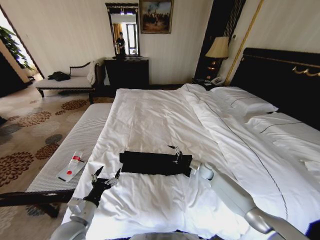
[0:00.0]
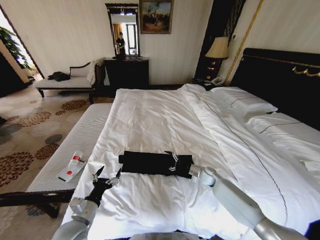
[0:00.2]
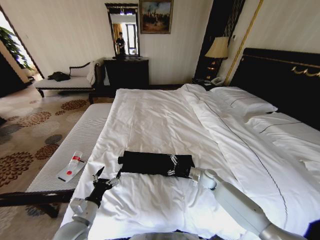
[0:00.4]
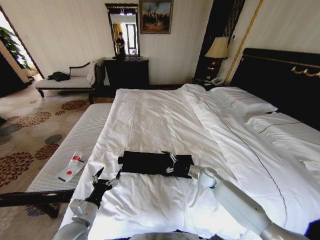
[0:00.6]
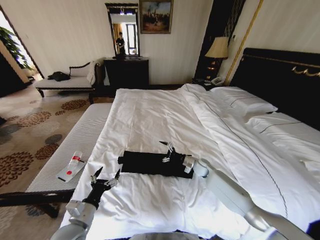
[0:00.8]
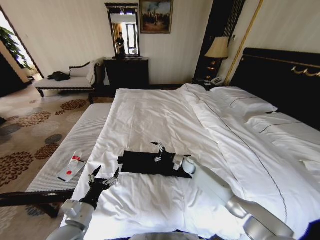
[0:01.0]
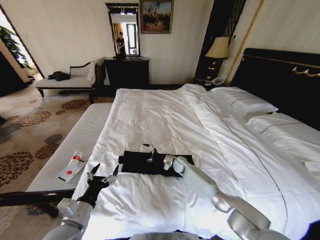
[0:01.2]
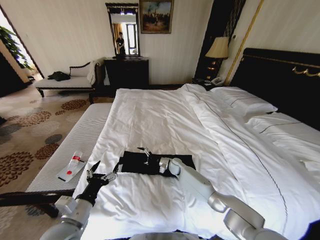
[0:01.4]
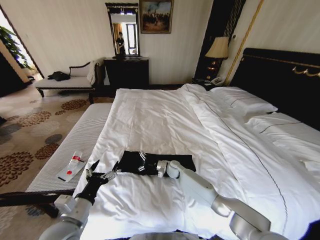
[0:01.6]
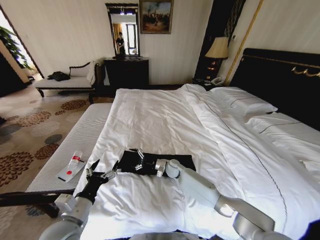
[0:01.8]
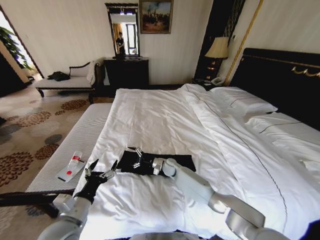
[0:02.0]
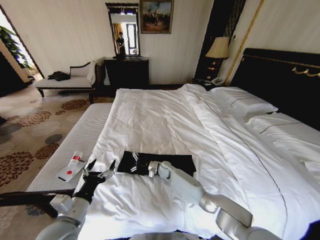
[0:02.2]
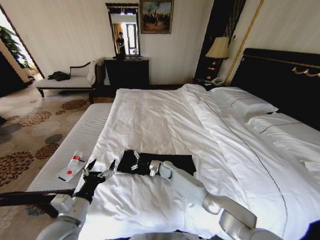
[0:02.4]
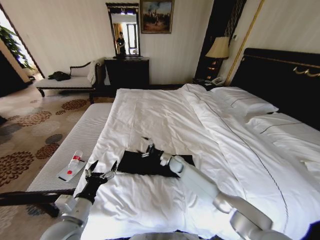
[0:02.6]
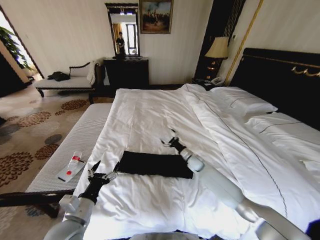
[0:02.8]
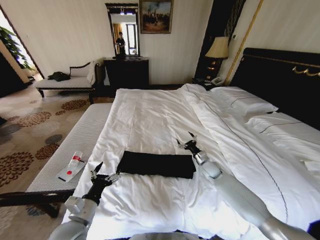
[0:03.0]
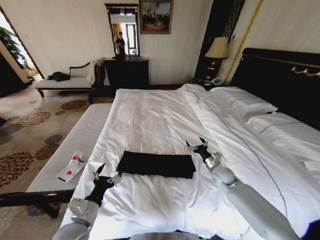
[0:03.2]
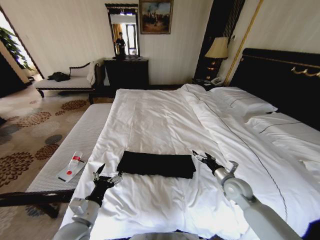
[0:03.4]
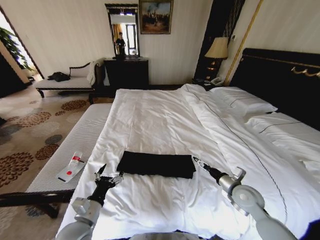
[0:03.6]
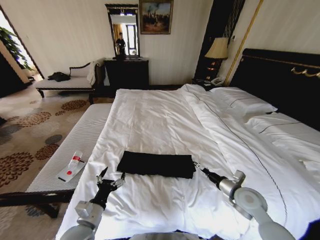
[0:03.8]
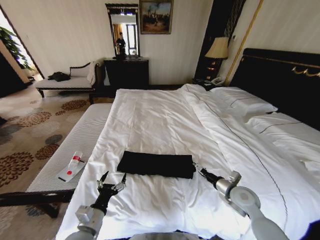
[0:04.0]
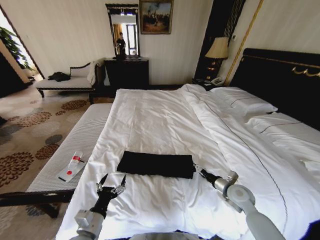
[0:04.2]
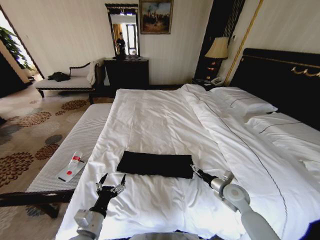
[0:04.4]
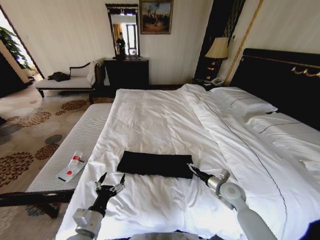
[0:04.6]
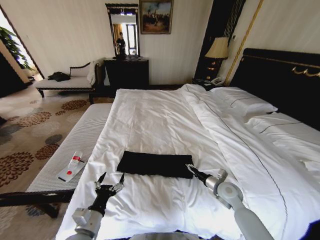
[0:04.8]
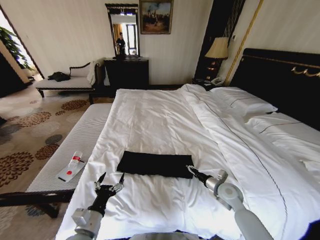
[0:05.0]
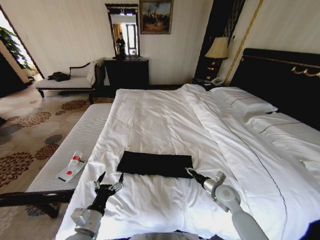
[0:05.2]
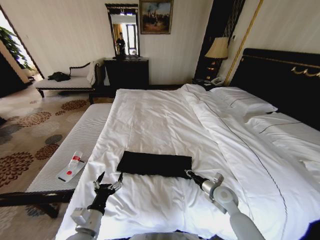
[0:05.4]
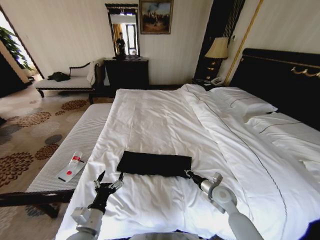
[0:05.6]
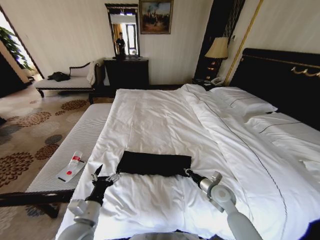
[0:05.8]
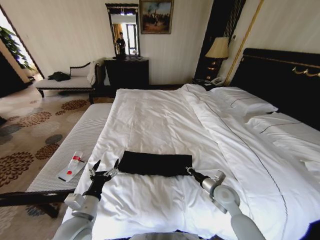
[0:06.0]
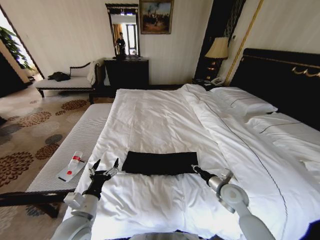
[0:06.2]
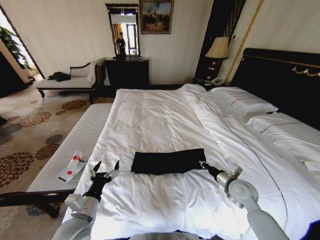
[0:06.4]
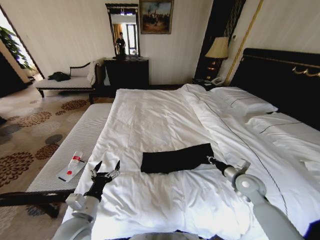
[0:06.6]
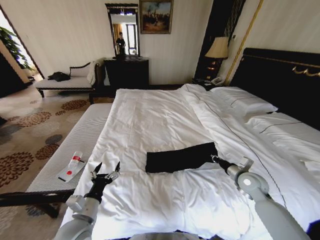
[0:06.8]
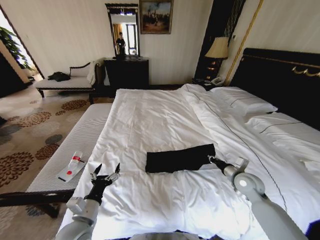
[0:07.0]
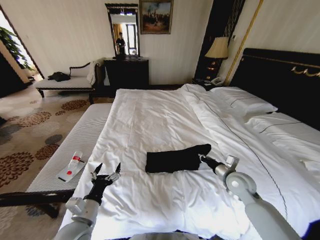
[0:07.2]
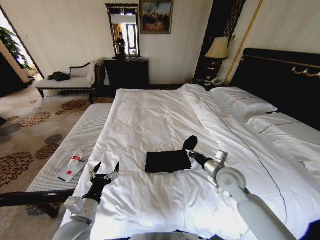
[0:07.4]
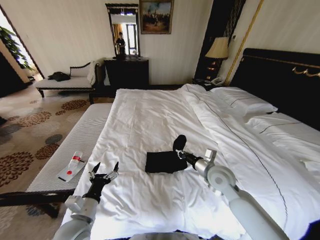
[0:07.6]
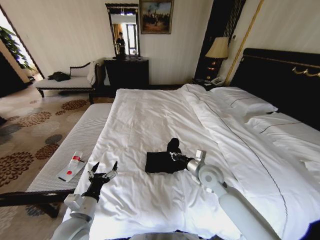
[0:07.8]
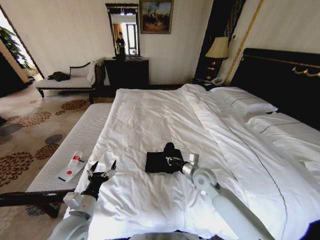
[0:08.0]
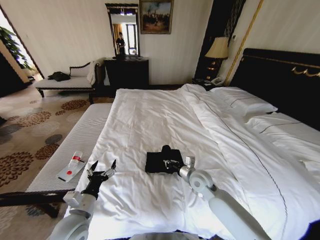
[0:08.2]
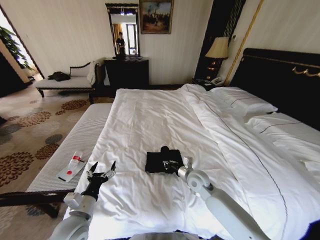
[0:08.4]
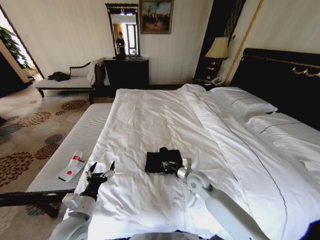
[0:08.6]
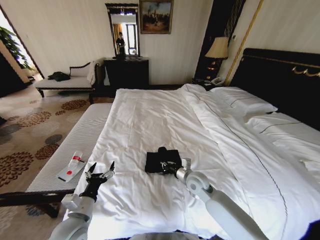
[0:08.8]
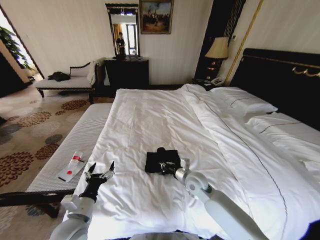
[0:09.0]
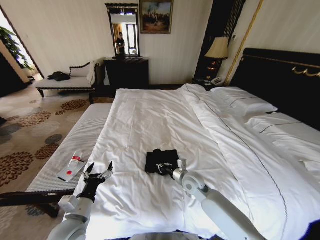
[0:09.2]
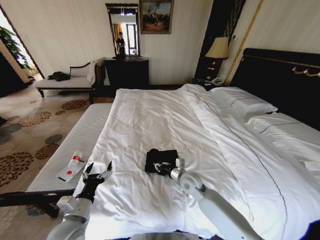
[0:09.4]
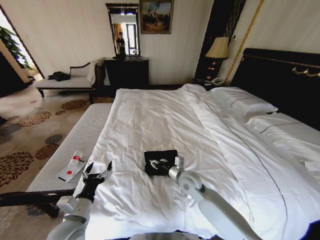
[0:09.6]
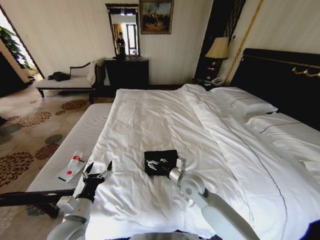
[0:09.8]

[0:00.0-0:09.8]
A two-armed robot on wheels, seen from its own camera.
Task of the whole recording: Fold the clothes on the bed.
0:00.0 to 0:01.4: The right gripper travels to the left by approximately 20 cm, while the left gripper is displaced upward by some 5 cm.
0:01.4 to 0:02.8: The right gripper goes approximately 15 cm to the right and upward.
0:02.8 to 0:04.2: The right gripper travels backward and to the right by about 20 cm. Meanwhile the left gripper moves approximately 5 cm.
0:04.2 to 0:05.6: The right gripper shifts about 5 cm to the left, and closes its fingers.
0:05.6 to 0:07.0: The right gripper travels to the right and upward by roughly 10 cm.
0:07.0 to 0:08.4: The right gripper goes approximately 20 cm to the left.
0:08.4 to 0:09.8: The right gripper changes place by about 5 cm, and opens.

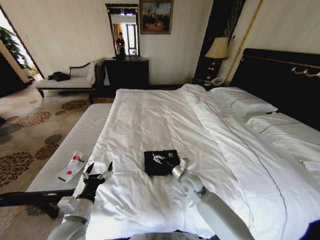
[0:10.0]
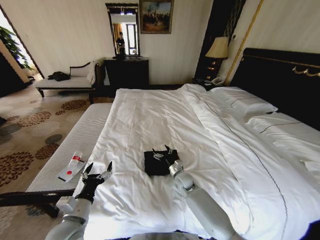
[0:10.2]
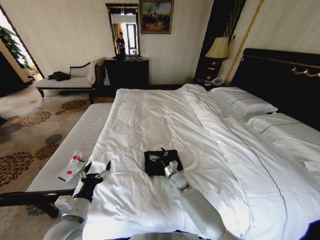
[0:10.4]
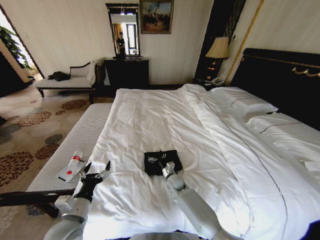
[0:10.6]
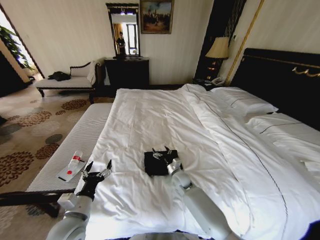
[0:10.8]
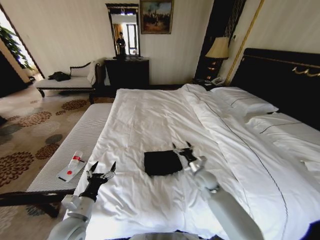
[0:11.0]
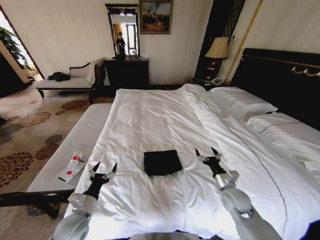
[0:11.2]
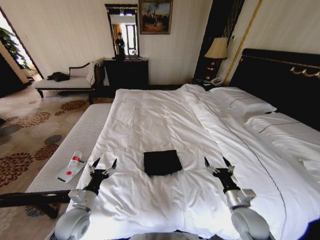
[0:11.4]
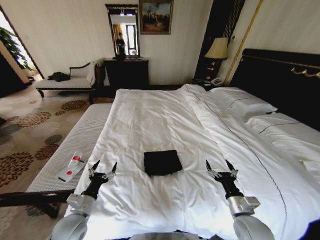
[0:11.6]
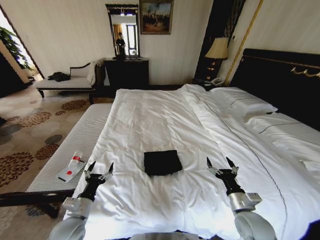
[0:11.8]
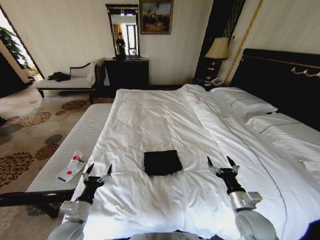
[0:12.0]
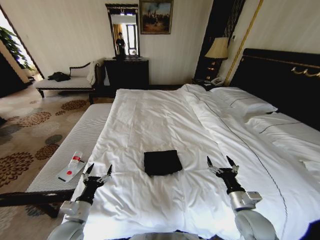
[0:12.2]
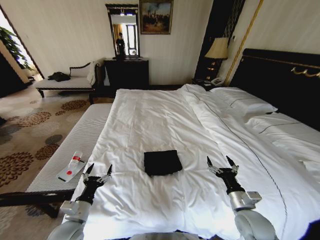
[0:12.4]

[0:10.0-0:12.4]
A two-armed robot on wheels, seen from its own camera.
Task of the whole recording: Fold the clothes on the bed.
0:10.0 to 0:11.2: The right gripper moves to the right, about 15 cm; the left gripper changes place by roughly 5 cm.
0:11.2 to 0:12.4: The right gripper heads backward, covering roughly 10 cm.

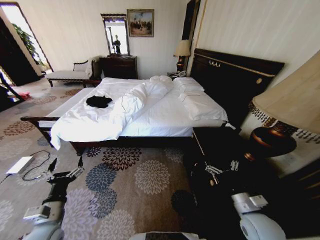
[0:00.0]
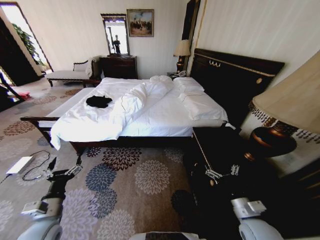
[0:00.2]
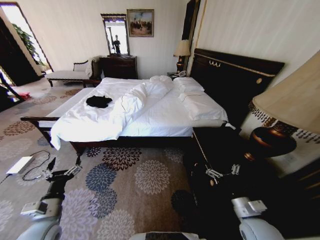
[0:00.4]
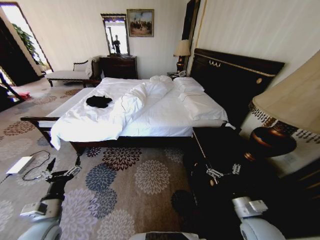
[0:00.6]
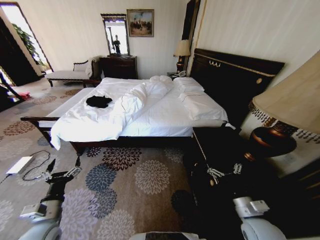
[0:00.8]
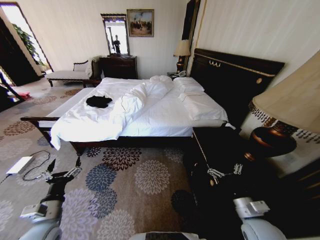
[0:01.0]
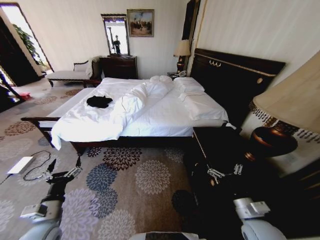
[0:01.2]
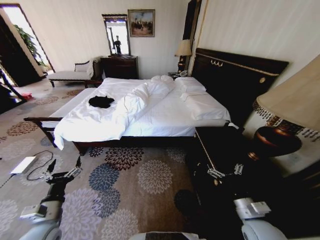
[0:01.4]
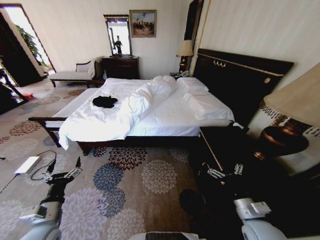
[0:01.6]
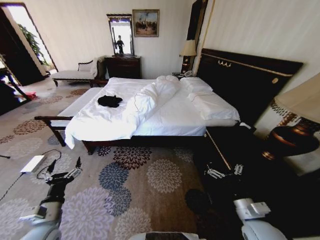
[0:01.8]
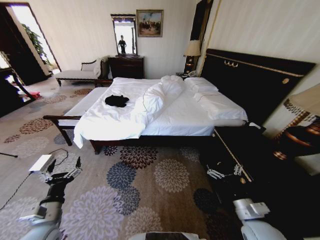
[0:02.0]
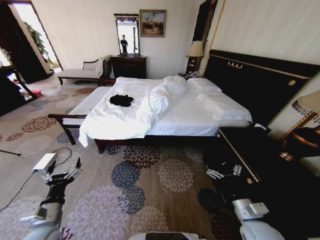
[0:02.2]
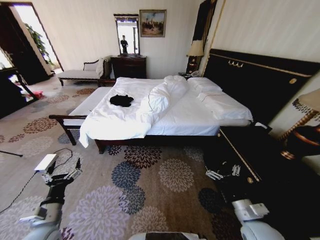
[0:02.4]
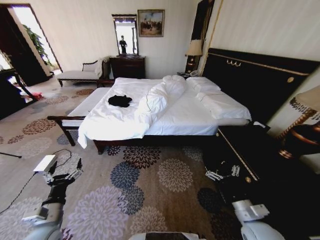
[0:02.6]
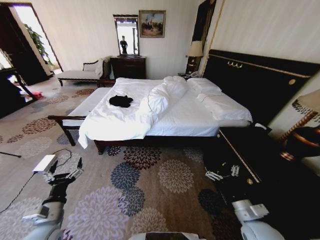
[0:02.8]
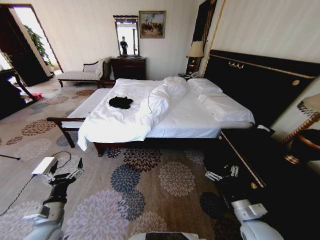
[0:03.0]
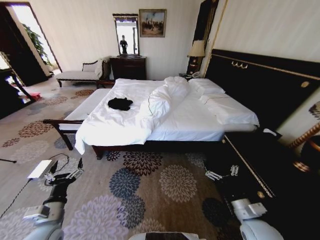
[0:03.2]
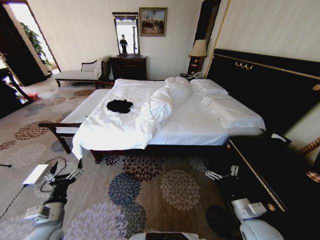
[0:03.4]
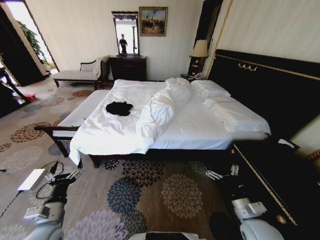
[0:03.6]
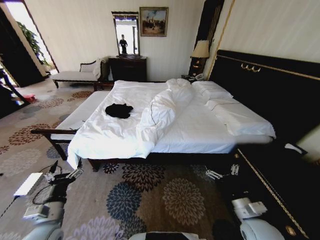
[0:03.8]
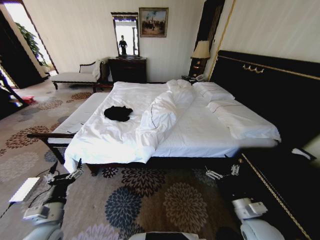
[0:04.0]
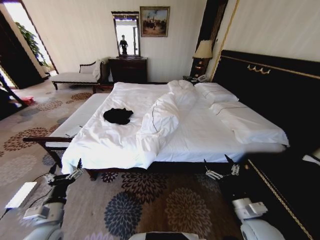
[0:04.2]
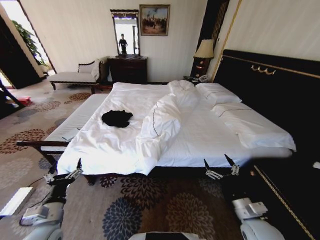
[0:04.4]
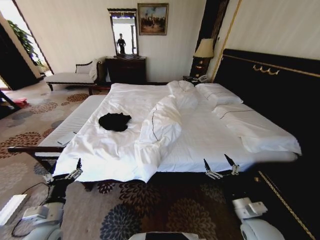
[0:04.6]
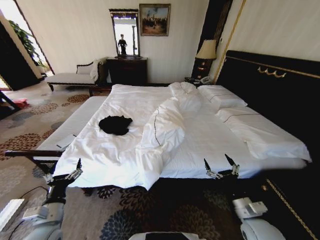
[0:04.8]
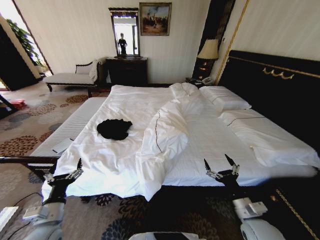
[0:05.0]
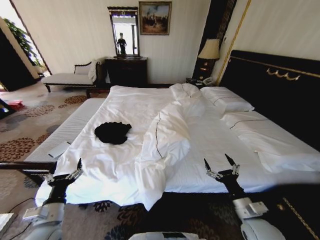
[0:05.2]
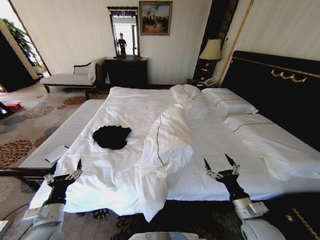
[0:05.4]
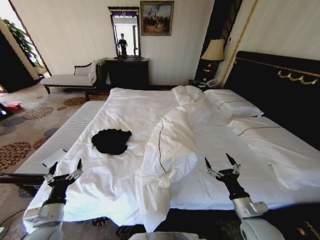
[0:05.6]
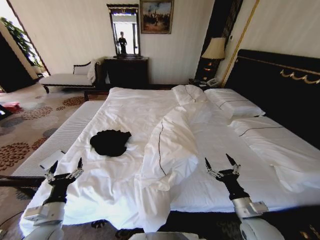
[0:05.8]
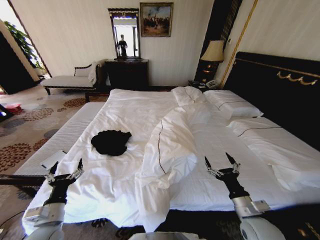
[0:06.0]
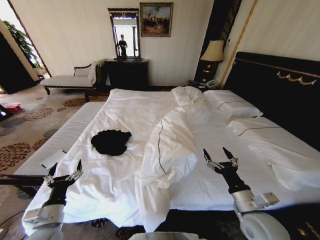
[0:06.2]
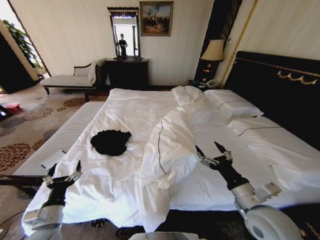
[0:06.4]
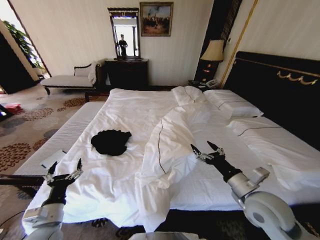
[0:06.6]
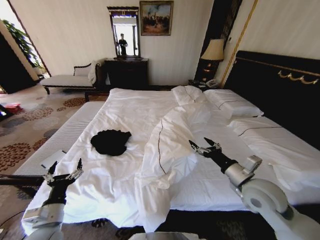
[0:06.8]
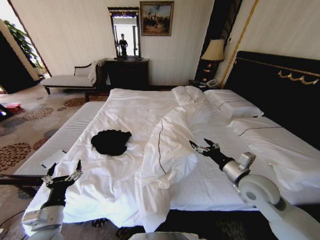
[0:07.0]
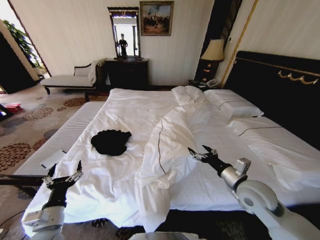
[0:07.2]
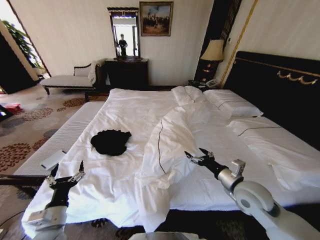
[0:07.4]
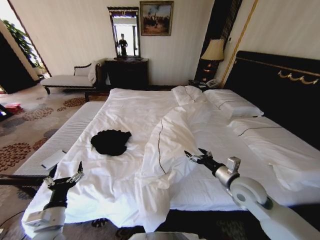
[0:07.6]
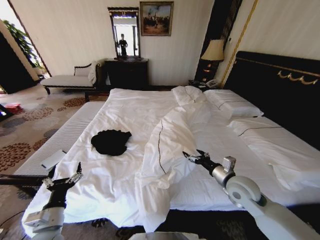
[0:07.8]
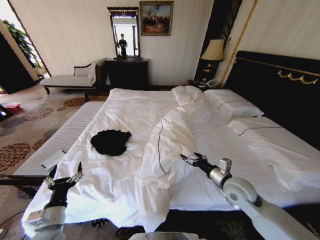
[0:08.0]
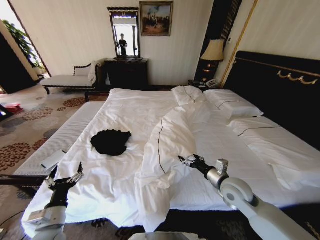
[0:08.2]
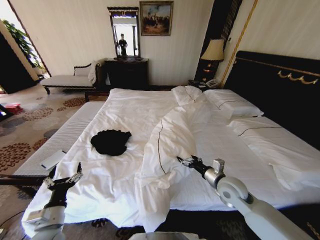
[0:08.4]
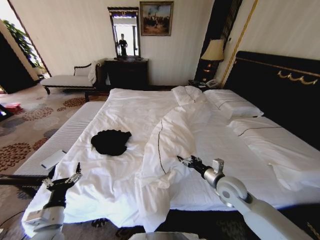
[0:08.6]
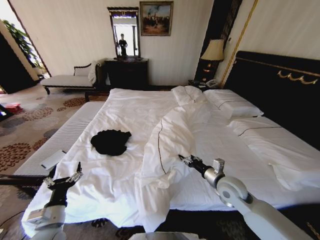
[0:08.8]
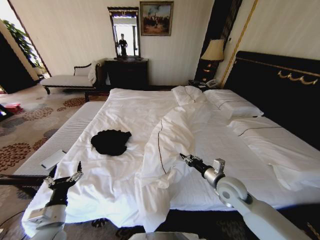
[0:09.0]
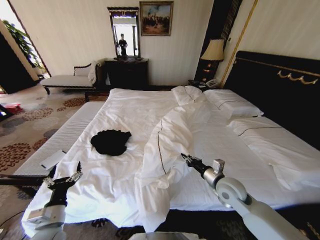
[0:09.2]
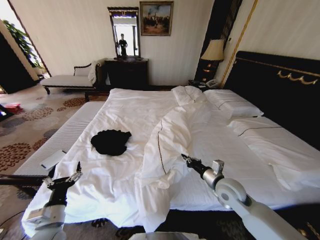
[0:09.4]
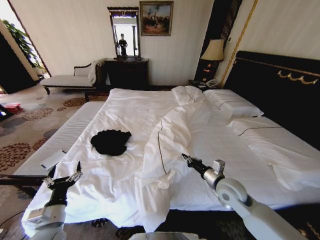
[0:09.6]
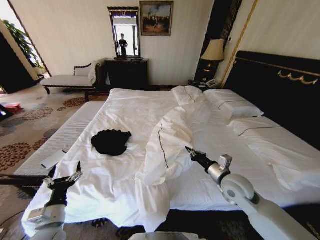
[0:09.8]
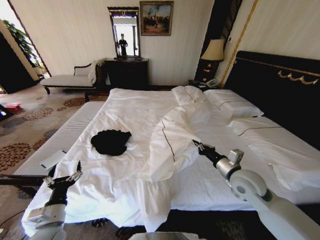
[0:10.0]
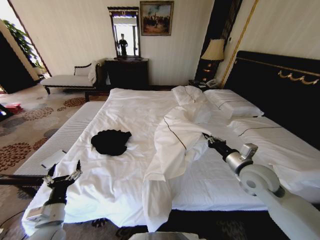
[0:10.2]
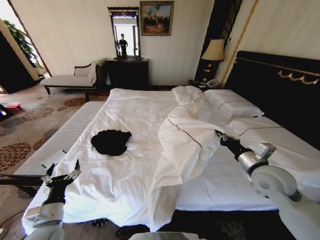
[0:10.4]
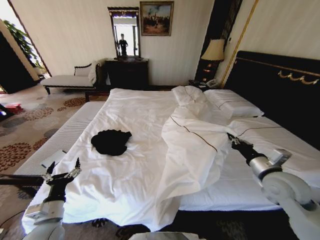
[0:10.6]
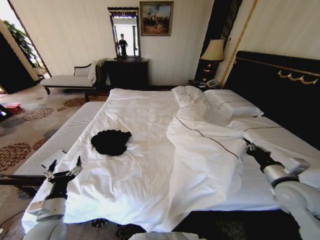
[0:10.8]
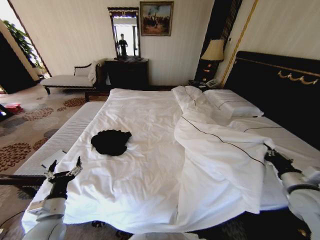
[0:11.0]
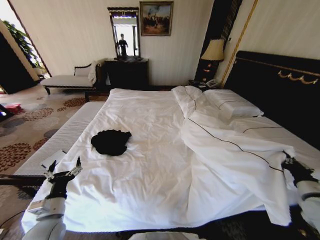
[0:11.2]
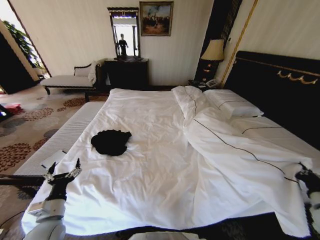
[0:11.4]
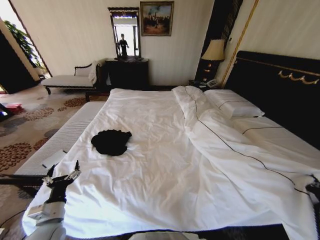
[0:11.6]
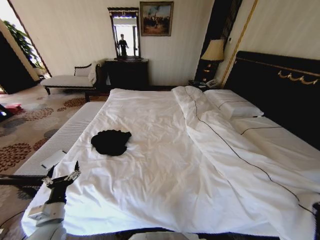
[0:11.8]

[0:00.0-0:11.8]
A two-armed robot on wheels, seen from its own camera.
Task of the whole recording: Fold the clothes on the bed.
0:06.0 to 0:07.4: The right gripper travels forward and upward by roughly 10 cm.
0:07.4 to 0:08.8: The right gripper moves some 5 cm.
0:08.8 to 0:10.4: The right gripper moves upward and to the right, roughly 10 cm, and closes.
0:10.4 to 0:11.8: The right gripper travels to the right, backward and downward by about 30 cm.
